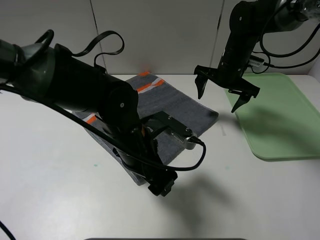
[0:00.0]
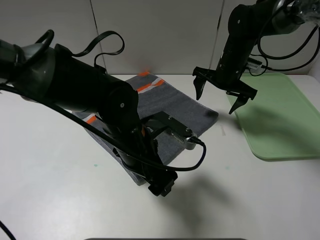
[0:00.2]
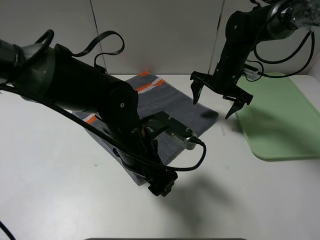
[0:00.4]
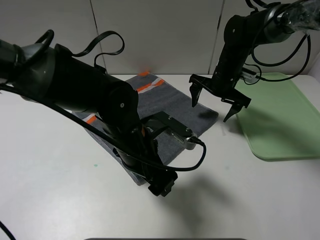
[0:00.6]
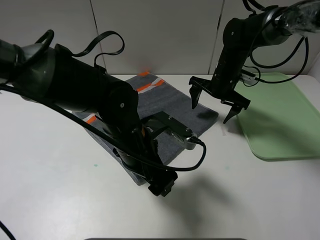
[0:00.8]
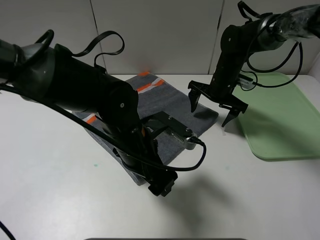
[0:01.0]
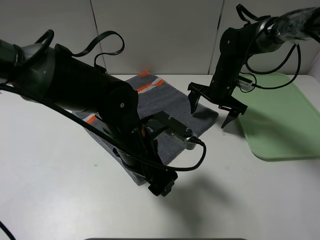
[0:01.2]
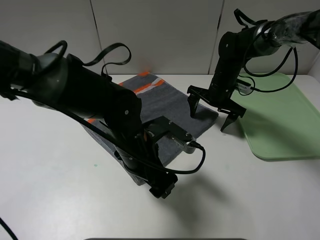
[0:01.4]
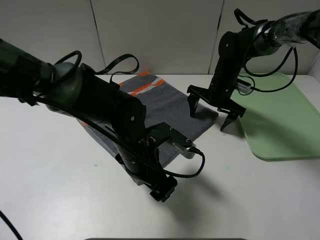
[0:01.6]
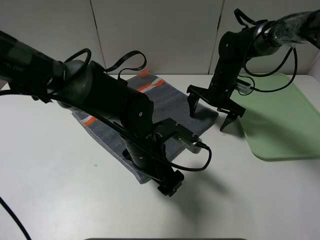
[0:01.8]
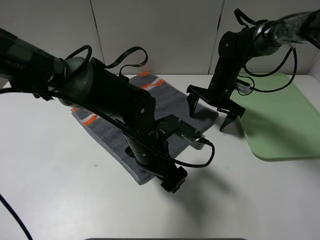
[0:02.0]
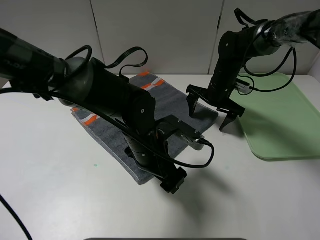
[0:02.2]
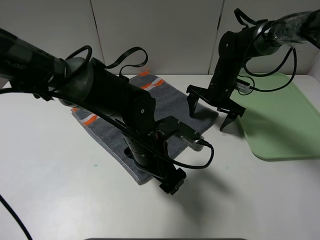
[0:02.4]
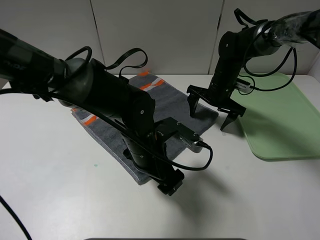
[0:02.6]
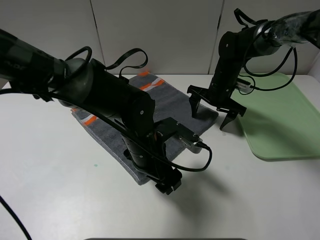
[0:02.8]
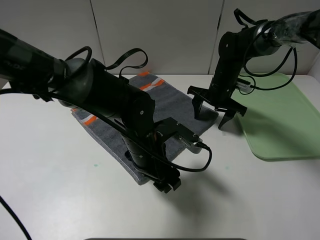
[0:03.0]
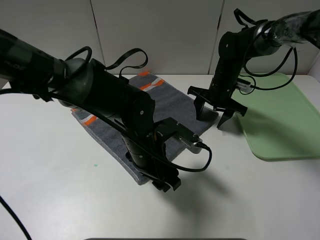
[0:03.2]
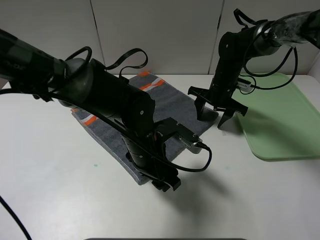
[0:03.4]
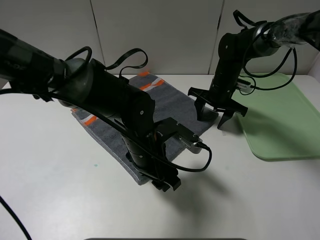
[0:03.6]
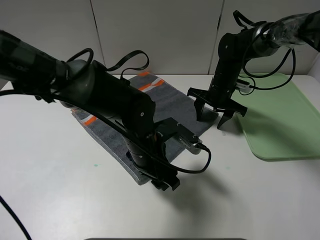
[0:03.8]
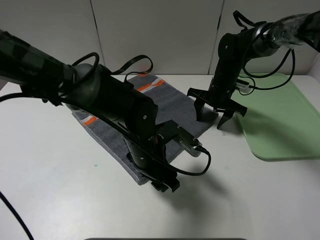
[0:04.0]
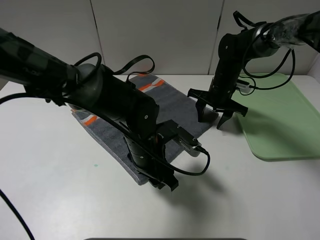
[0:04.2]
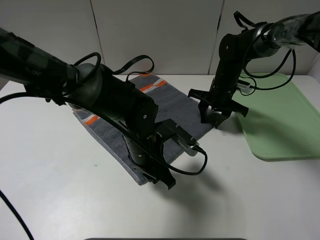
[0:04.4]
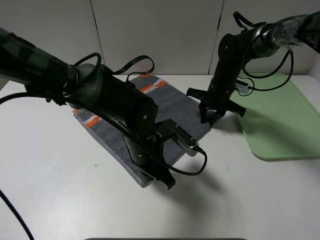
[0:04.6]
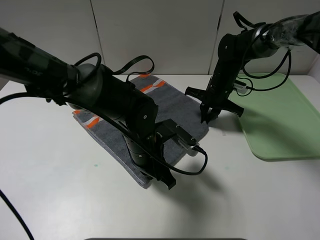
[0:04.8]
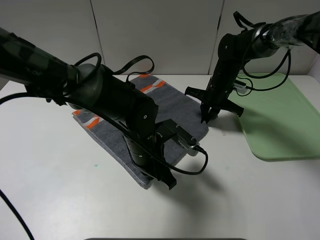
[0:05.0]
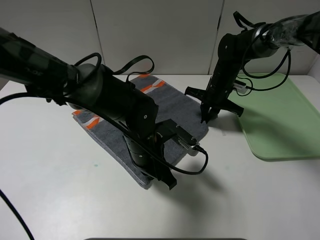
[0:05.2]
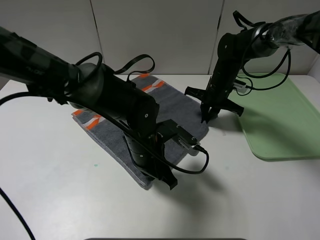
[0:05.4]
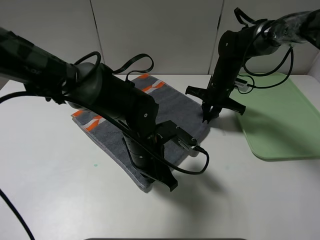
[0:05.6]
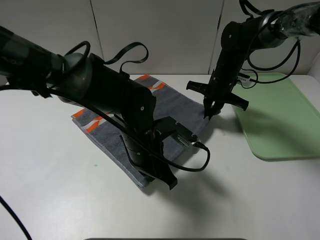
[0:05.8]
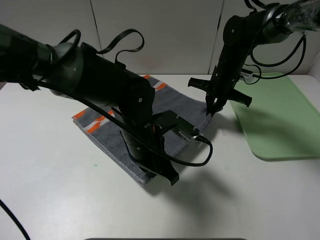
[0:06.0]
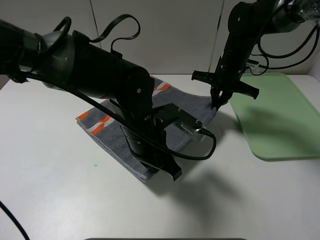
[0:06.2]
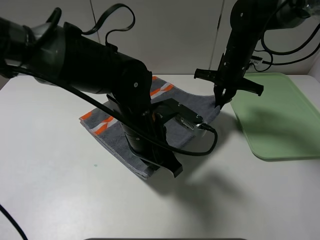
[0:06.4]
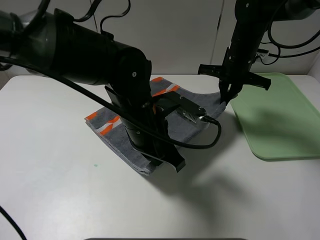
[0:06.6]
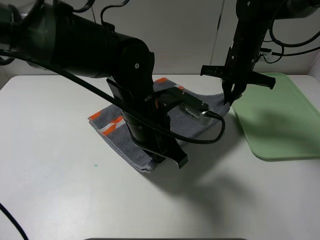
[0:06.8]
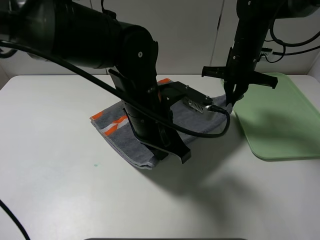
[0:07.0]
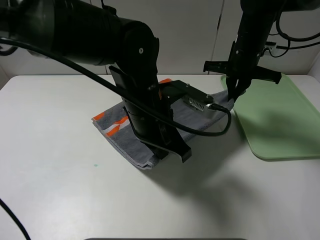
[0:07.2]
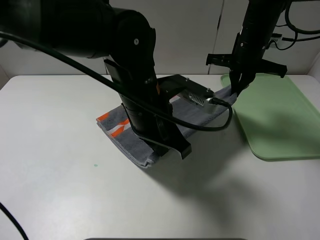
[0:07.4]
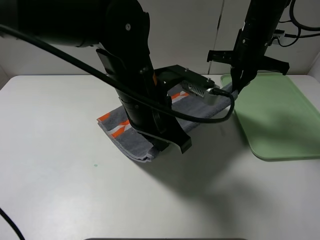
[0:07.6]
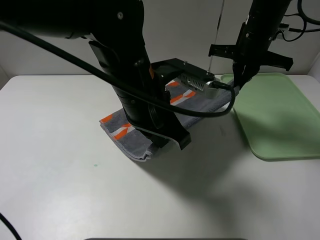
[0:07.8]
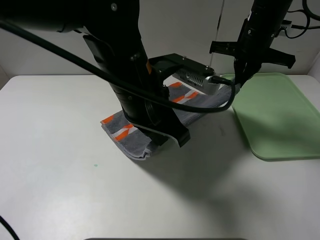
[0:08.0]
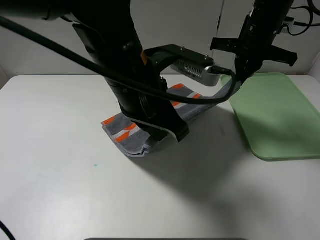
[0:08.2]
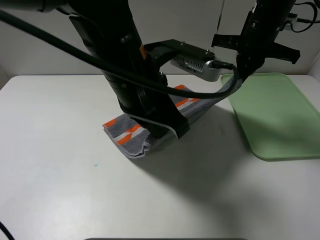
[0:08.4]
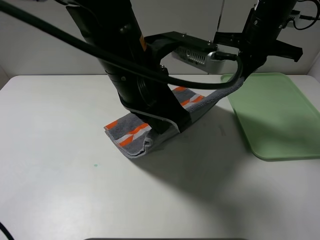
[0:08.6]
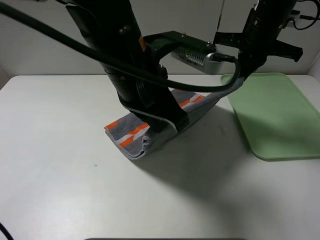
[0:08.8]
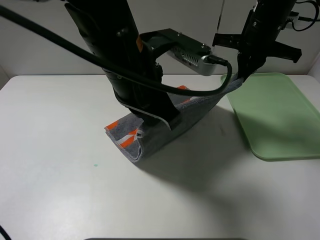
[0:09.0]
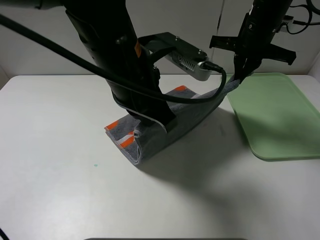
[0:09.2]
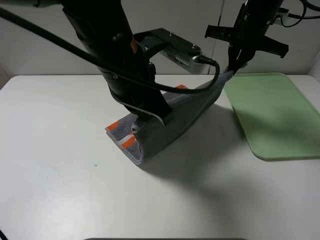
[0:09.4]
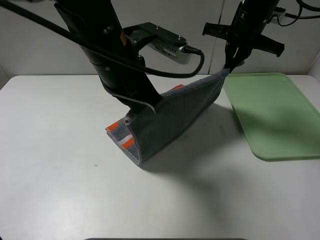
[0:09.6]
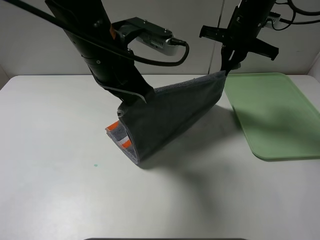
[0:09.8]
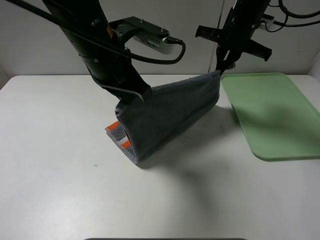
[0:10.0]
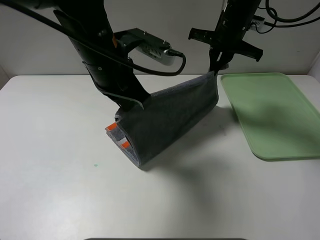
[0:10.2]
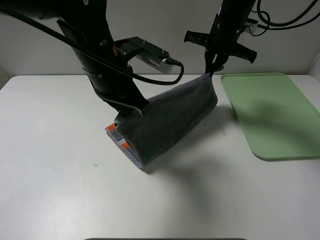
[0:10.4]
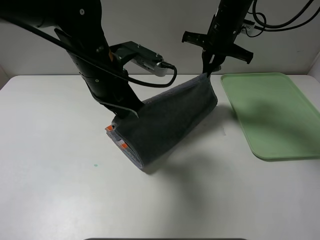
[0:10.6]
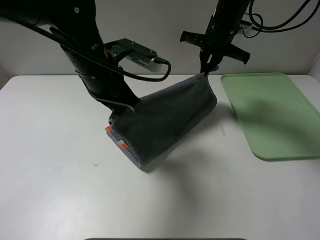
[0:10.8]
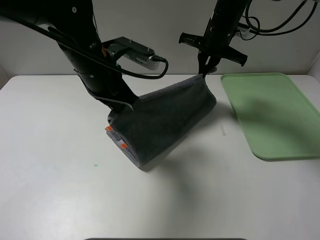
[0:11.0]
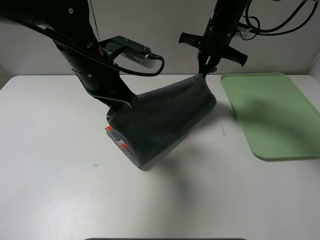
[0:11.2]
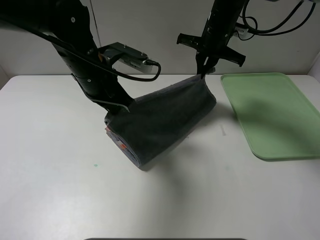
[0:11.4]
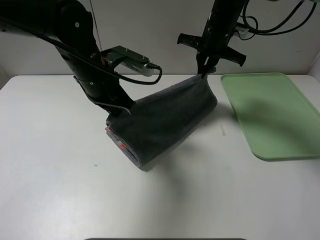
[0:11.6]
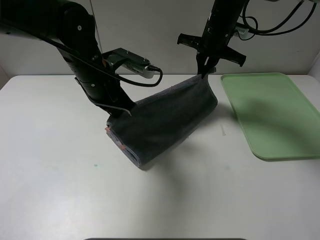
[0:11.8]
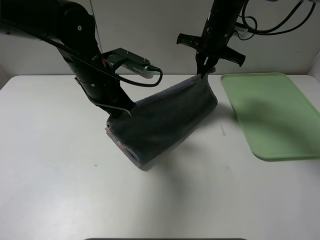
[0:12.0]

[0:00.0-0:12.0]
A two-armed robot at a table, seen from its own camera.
0:00.0 to 0:01.6: The right gripper goes about 5 cm downward.
0:01.6 to 0:03.0: There are only small adjustments of the grippers.
0:03.0 to 0:04.4: The left gripper closes.
0:04.4 to 0:06.0: The right gripper closes its fingers.
0:06.0 to 0:07.6: The two grippers go approximately 10 cm upward.
0:09.0 to 0:10.4: The grippers both shift forward by some 5 cm.
0:10.4 to 0:12.0: The left gripper changes place by approximately 5 cm.

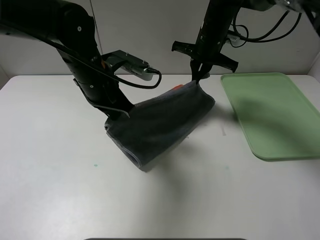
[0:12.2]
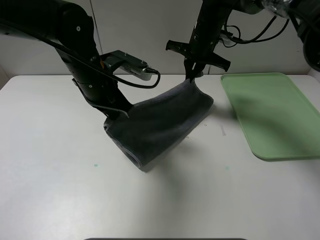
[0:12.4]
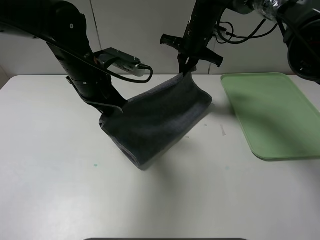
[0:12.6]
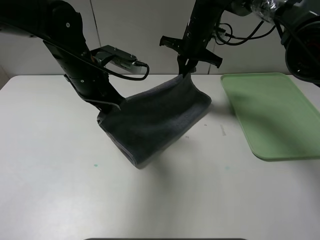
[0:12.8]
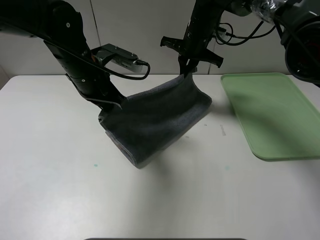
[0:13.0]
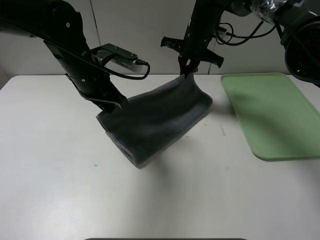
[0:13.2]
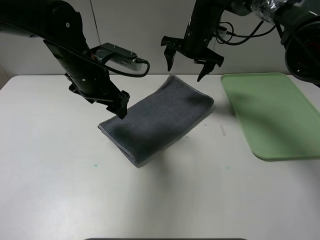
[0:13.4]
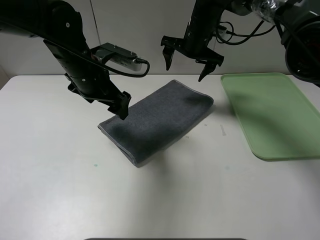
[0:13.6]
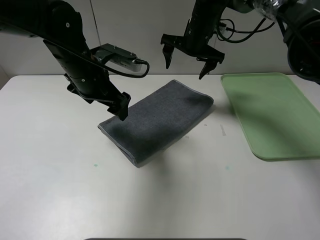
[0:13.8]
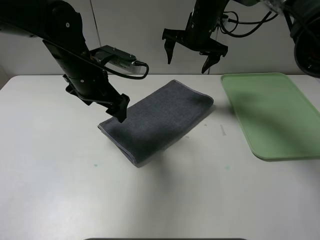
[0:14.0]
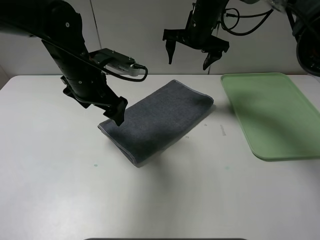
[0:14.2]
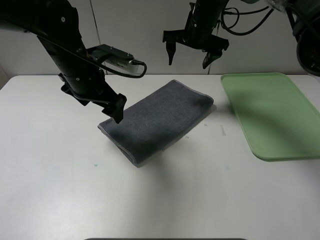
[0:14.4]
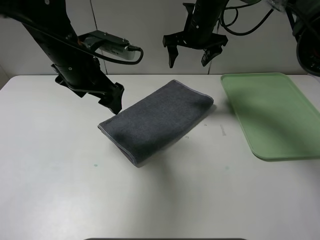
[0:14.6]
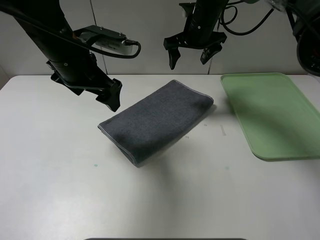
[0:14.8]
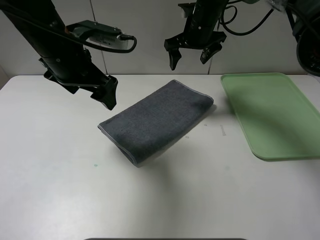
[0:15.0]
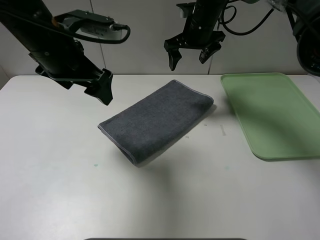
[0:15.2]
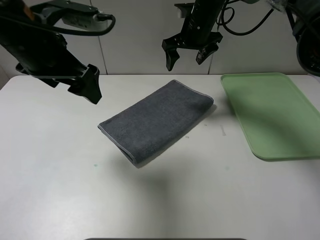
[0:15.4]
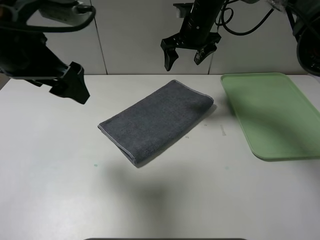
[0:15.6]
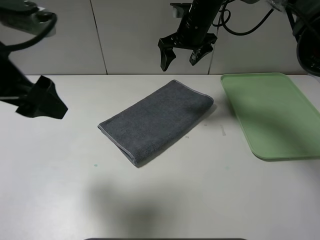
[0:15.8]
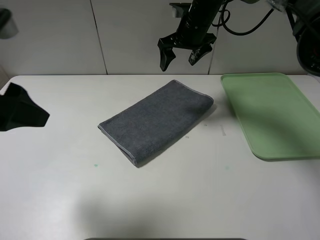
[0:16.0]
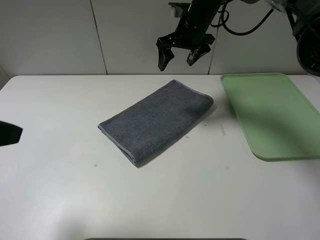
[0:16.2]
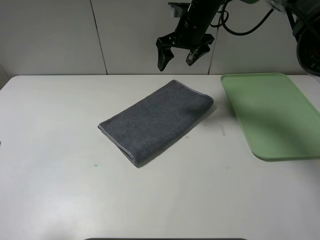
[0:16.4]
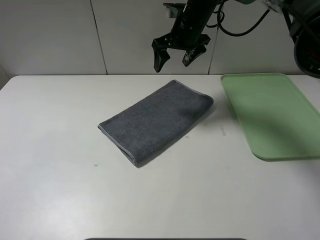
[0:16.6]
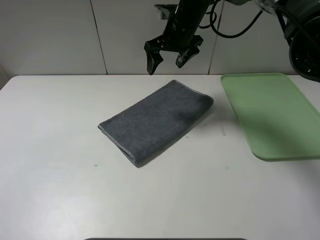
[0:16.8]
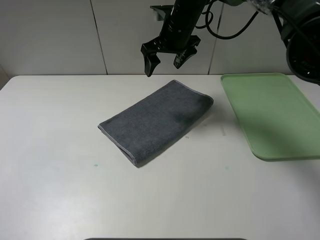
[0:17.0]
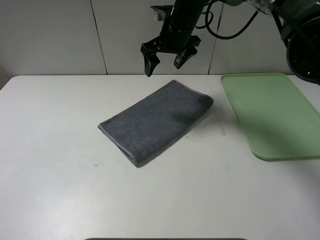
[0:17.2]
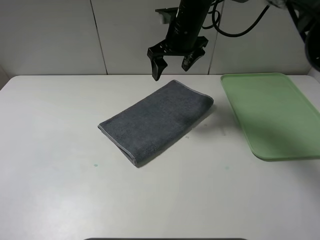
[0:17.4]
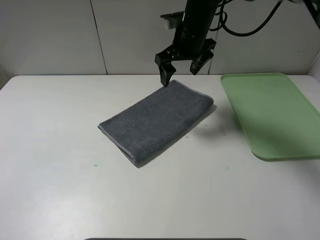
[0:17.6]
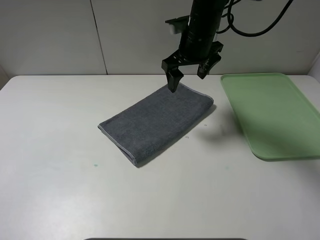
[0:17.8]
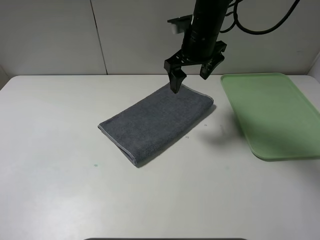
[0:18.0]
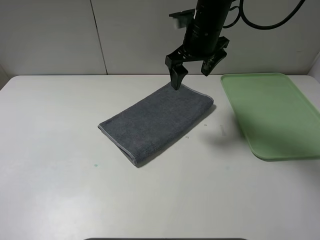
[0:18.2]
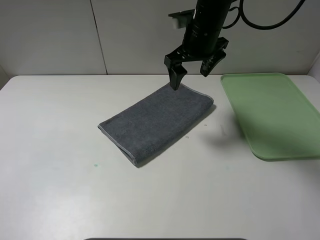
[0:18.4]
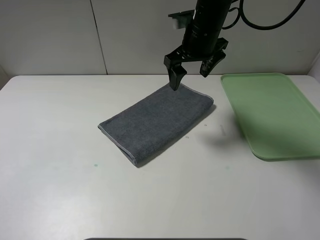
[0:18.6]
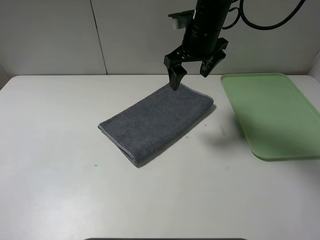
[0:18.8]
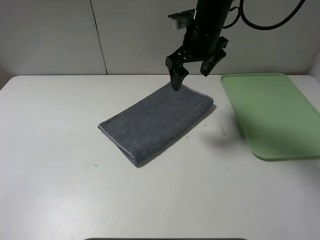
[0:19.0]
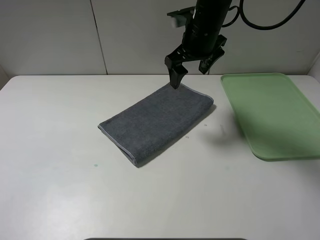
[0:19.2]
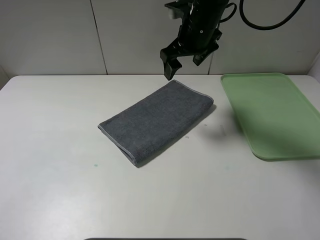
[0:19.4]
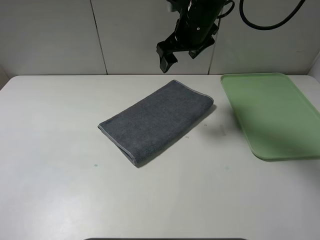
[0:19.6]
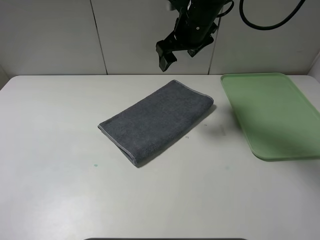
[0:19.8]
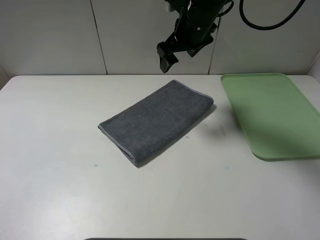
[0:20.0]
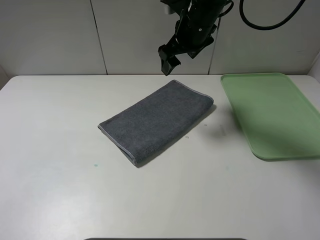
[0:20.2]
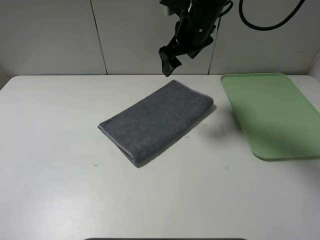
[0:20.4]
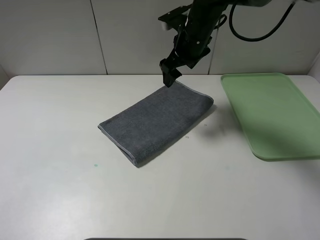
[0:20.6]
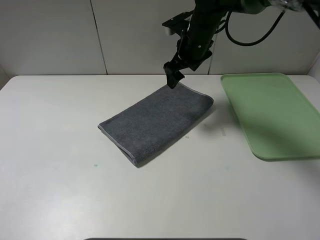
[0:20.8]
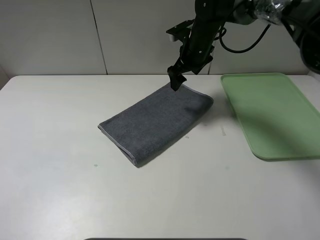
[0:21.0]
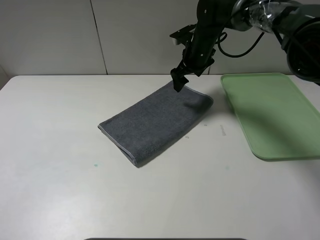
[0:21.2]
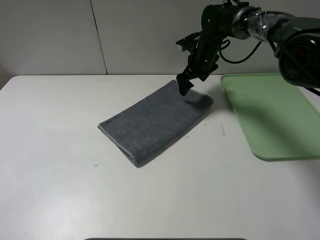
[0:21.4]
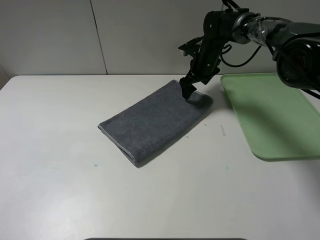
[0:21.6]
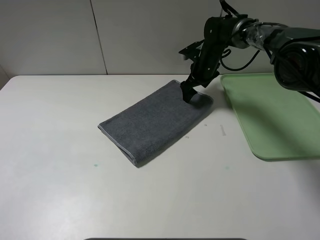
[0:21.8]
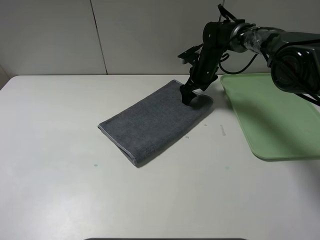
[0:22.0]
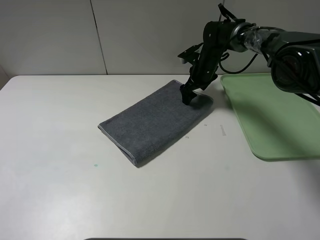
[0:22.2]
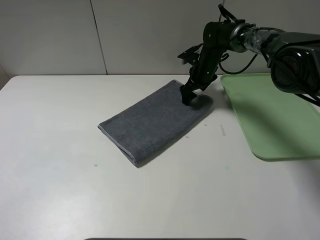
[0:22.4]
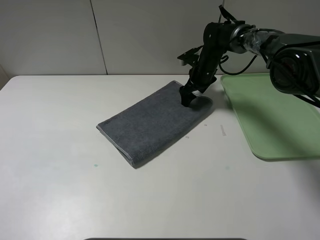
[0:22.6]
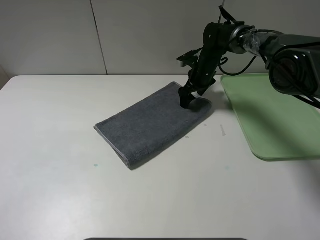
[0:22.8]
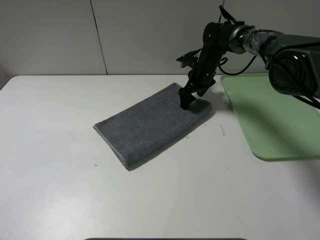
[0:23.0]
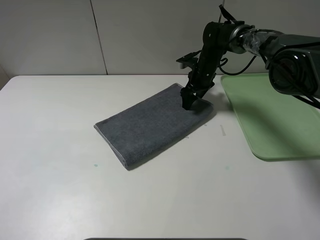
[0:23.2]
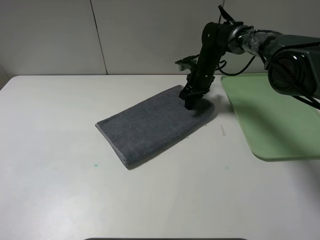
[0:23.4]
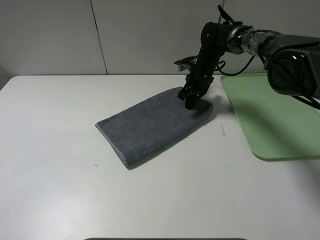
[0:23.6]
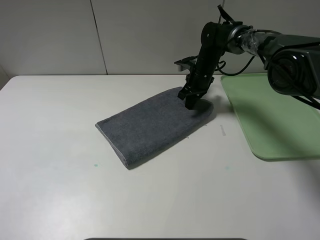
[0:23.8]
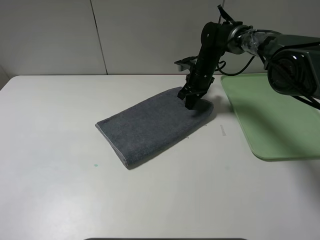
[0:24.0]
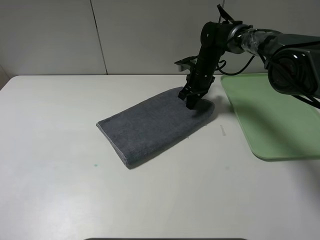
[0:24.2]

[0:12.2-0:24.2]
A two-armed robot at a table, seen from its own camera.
0:12.2 to 0:13.8: The left gripper opens its fingers; the right gripper opens up.
0:13.8 to 0:15.2: The left gripper shifts roughly 10 cm upward.
0:15.2 to 0:16.6: The left gripper shifts some 30 cm backward and to the left.
0:16.6 to 0:18.2: The right gripper shifts approximately 5 cm backward.
0:19.8 to 0:21.2: The right gripper heads downward and forward, covering approximately 10 cm.
0:21.2 to 0:22.6: The right gripper goes roughly 5 cm downward.
0:22.6 to 0:24.2: The right gripper closes its fingers.
